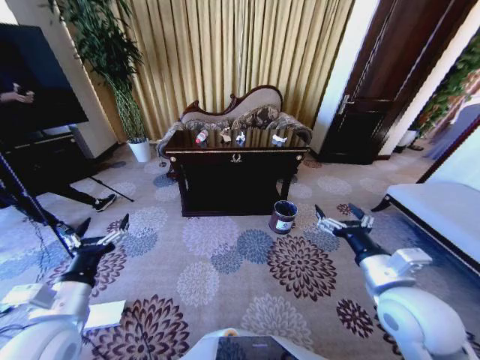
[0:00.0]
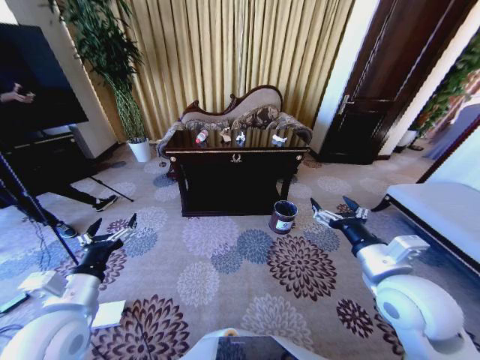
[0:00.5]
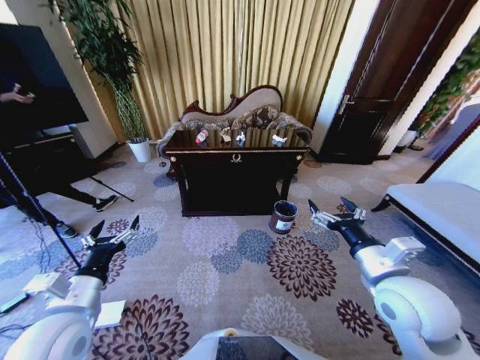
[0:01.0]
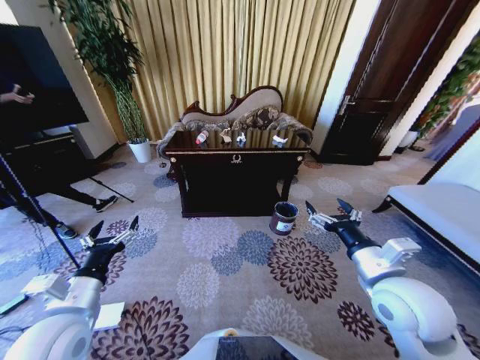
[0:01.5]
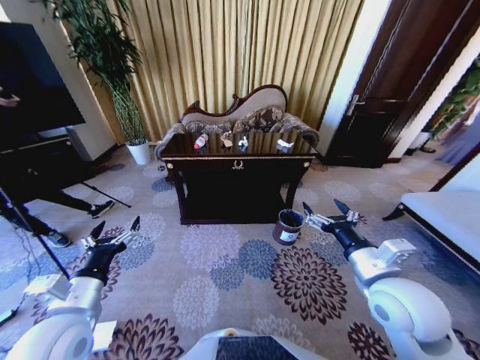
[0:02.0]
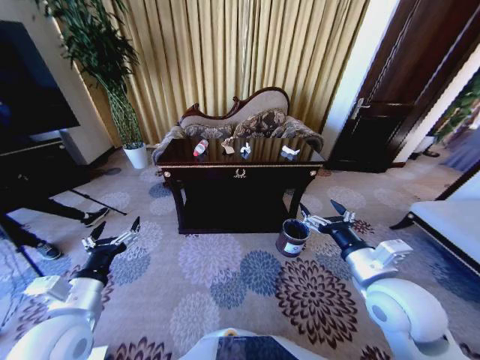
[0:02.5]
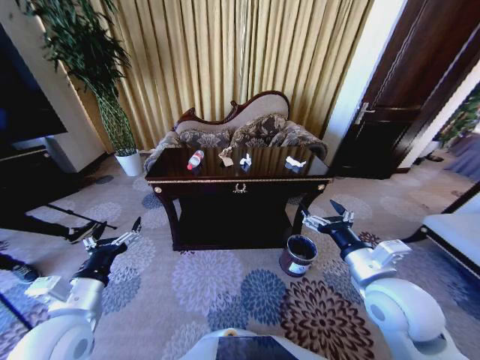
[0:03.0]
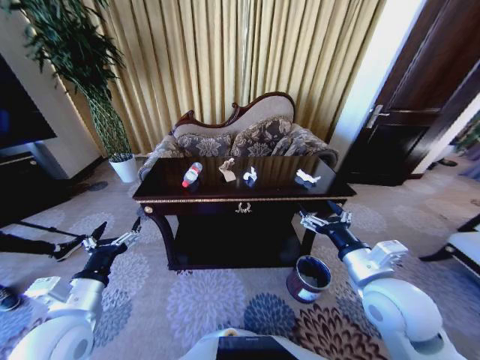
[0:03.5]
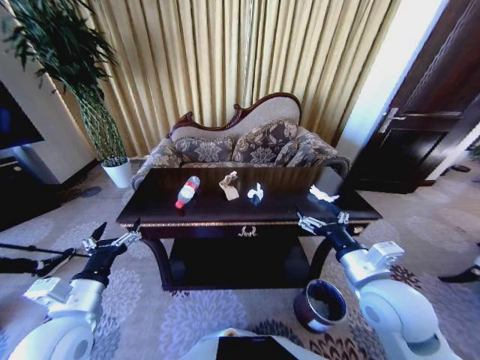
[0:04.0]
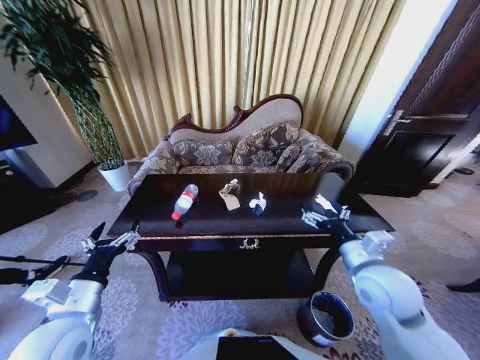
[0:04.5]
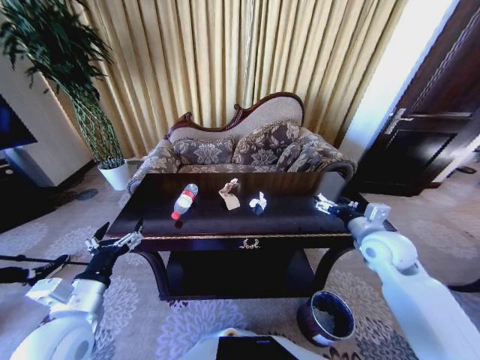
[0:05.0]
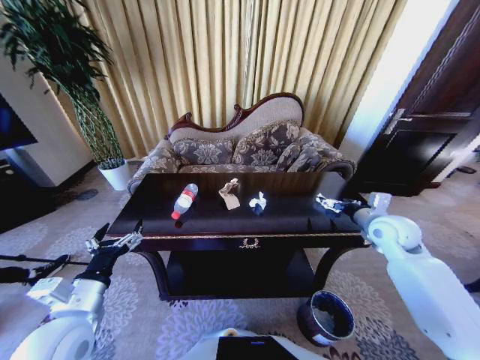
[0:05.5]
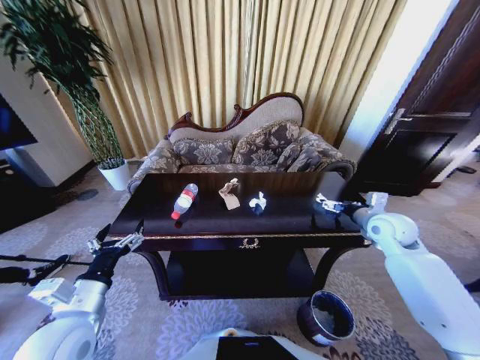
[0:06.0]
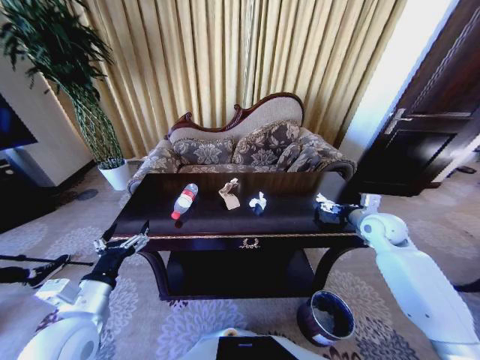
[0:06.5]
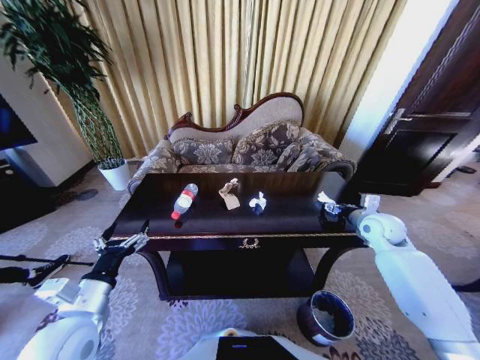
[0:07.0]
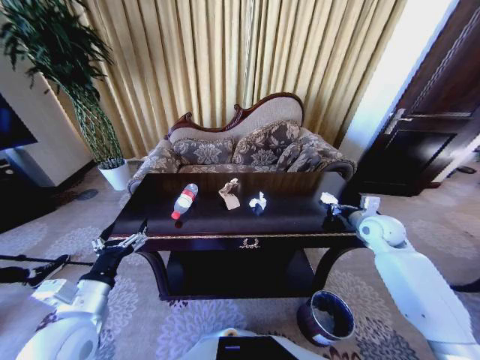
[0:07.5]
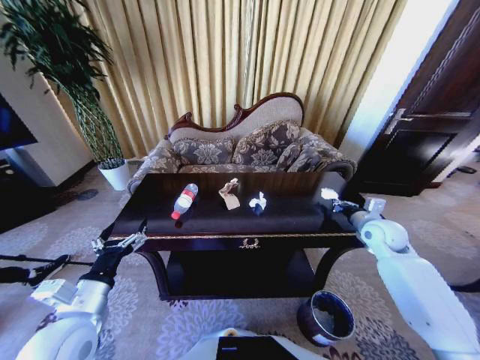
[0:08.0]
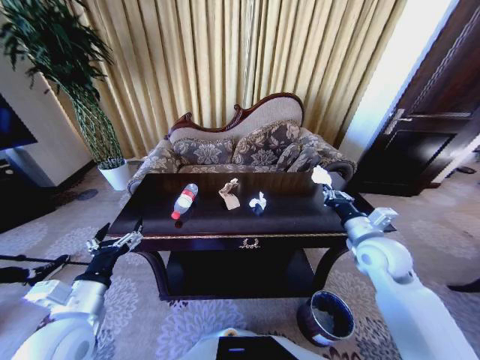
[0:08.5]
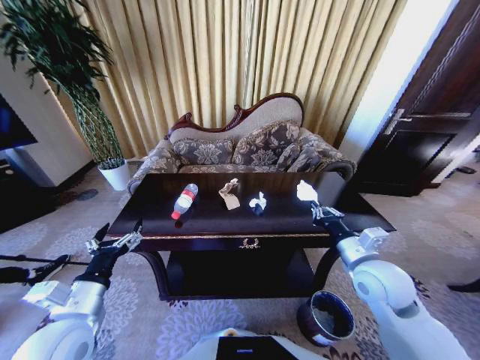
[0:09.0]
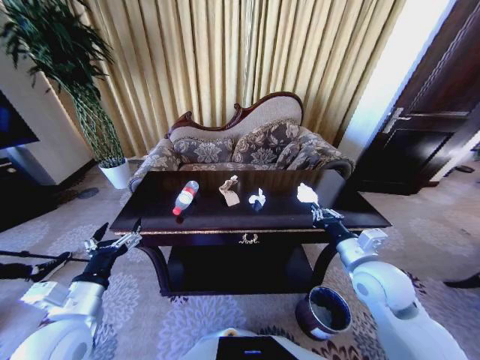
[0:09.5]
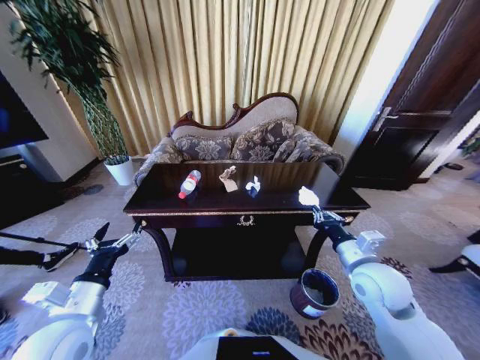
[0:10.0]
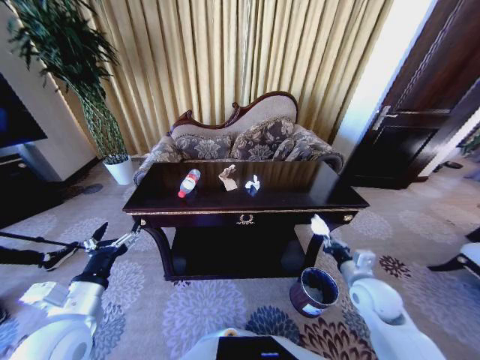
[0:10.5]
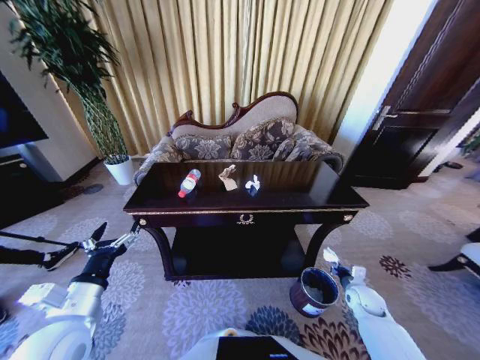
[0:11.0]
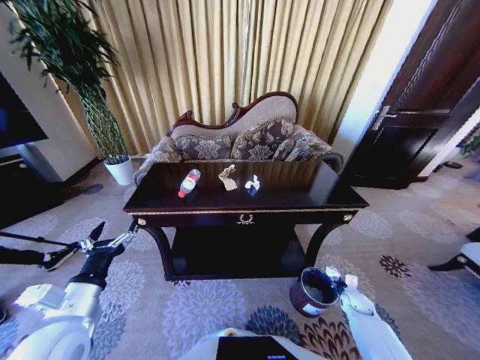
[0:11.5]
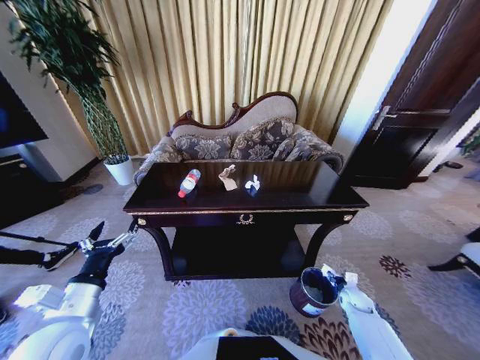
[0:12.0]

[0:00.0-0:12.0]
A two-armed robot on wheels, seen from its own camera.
Task of the whole recording: Move to the front of the table and place the trash on the table into the trash bin.
0:04.0 to 0:06.0: The right gripper goes some 25 cm forward and to the right.
0:06.0 to 0:08.0: The right gripper closes its fingers.
0:08.0 to 0:10.0: The right gripper is displaced backward and to the left by approximately 20 cm.
0:10.0 to 0:12.0: The right gripper is displaced downward and to the right by some 35 cm, and opens its fingers.

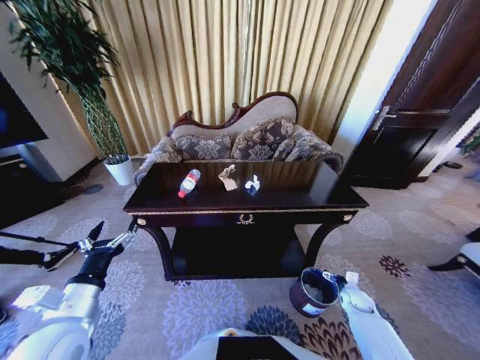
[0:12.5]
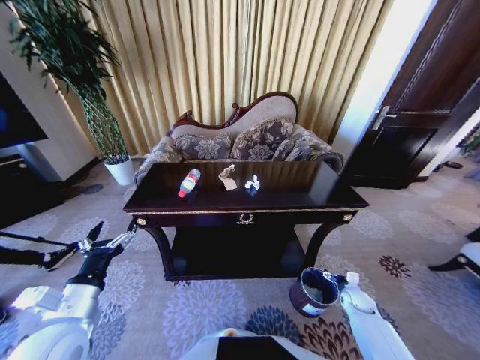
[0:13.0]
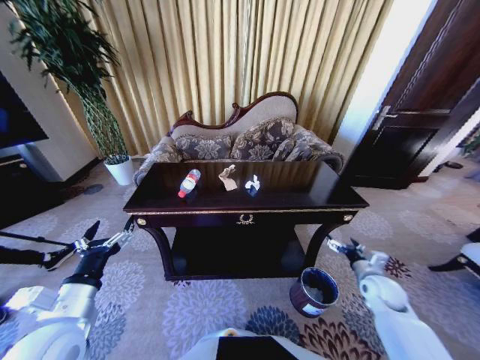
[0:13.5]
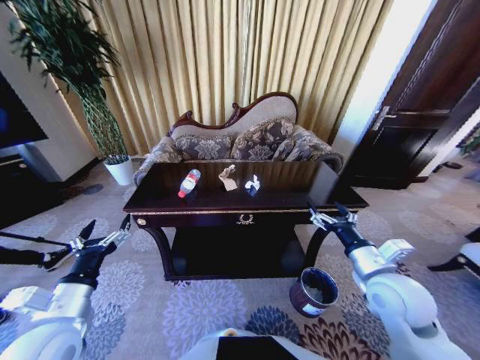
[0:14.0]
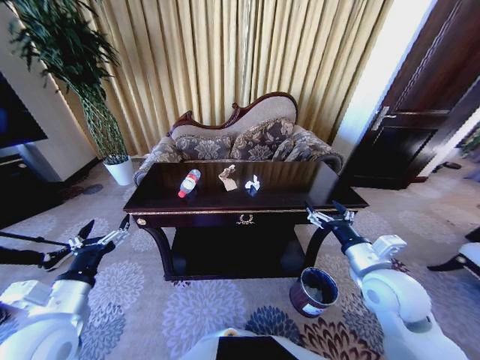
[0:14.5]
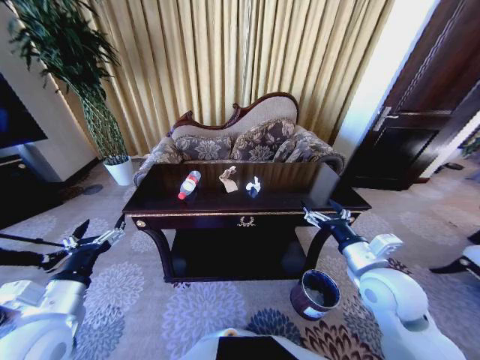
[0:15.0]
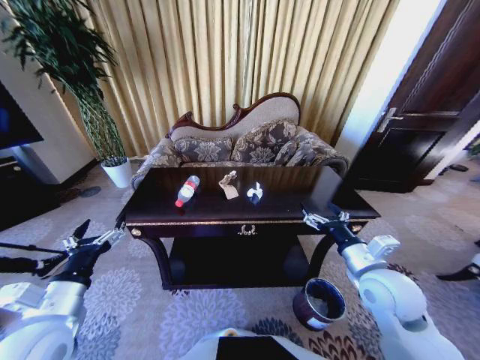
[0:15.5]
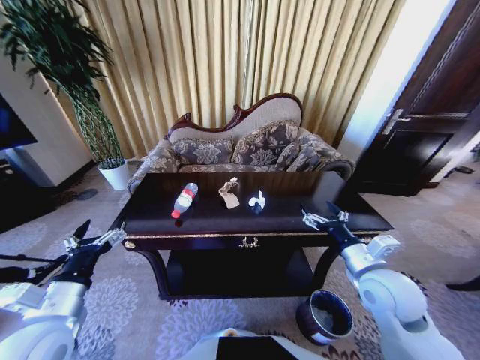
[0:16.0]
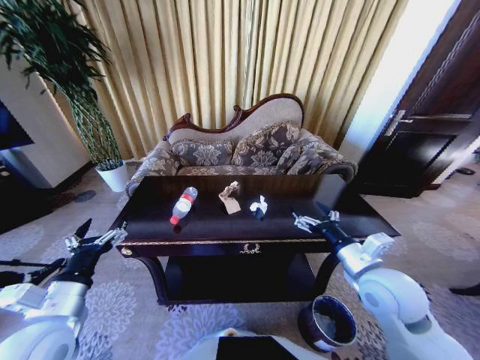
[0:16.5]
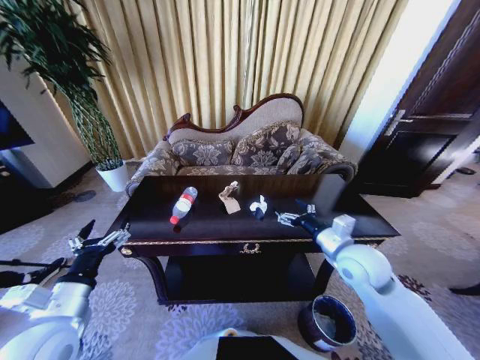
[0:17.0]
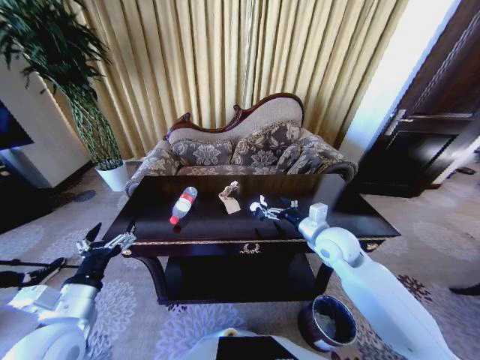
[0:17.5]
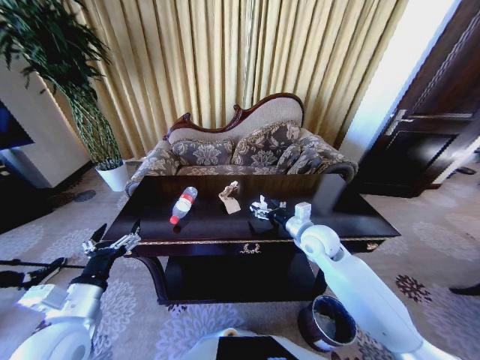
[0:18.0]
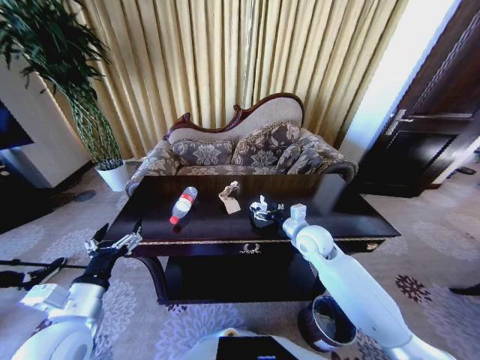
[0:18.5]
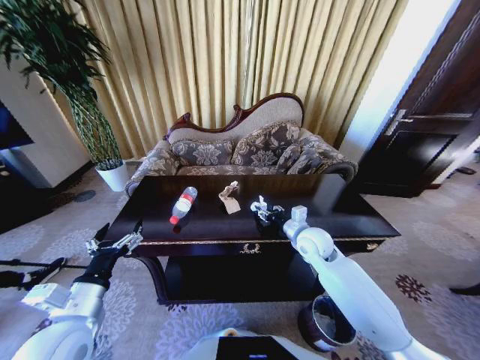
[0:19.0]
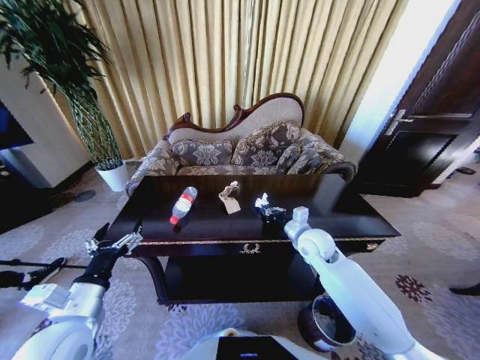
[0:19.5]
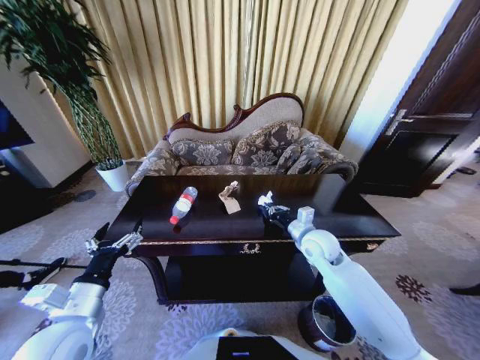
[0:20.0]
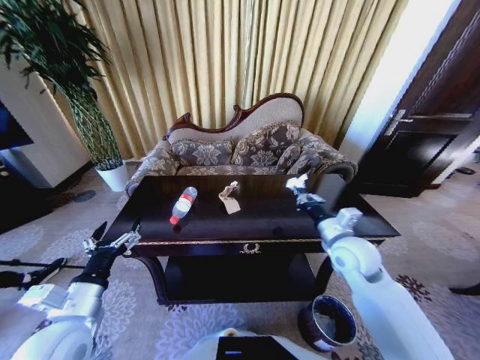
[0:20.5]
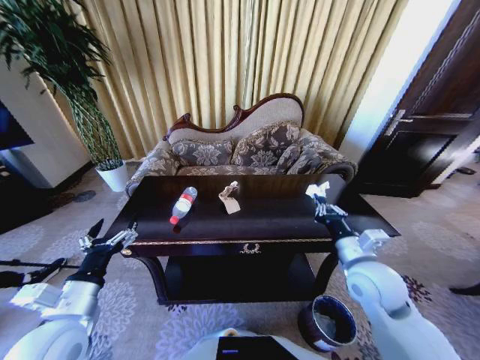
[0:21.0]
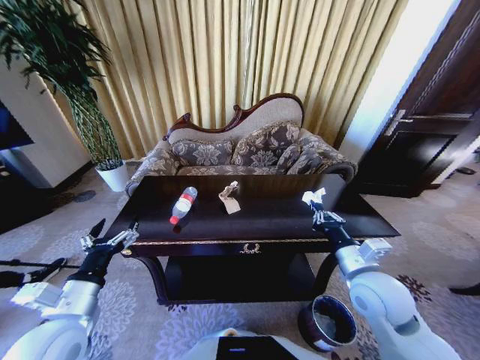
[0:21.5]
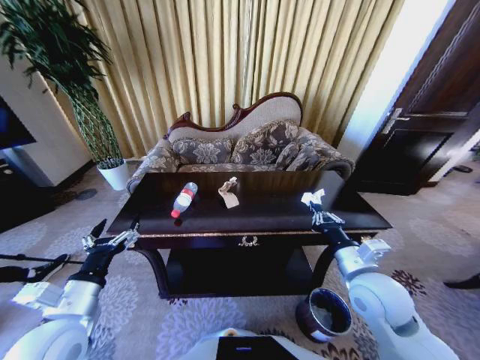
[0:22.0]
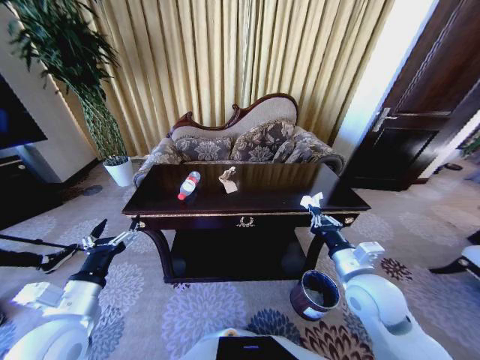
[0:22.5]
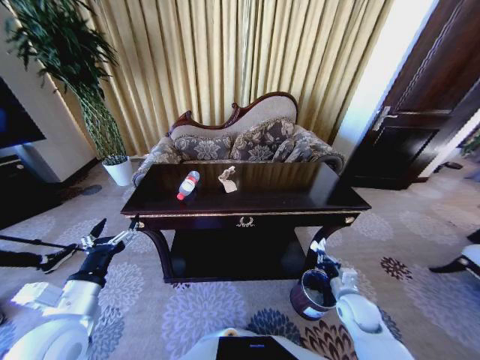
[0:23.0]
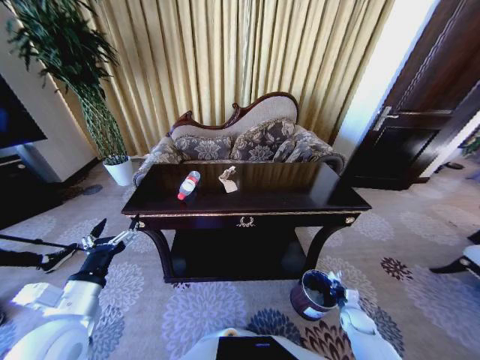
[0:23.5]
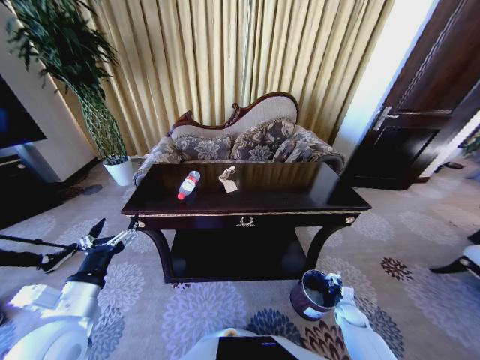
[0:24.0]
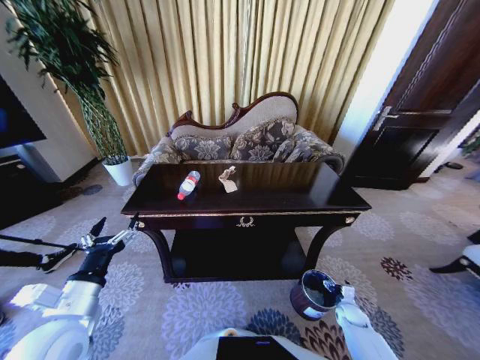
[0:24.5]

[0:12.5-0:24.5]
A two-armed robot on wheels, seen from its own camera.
Task of the whole recording: Move to the front of the table and place the trash on the table into the trash bin.
0:12.5 to 0:14.5: The right gripper travels upward and to the left by approximately 35 cm.
0:16.5 to 0:18.5: The right gripper goes roughly 15 cm forward and to the left.
0:18.5 to 0:20.5: The right gripper heads backward and to the right, covering about 10 cm, and closes its fingers.
0:20.5 to 0:22.5: The right gripper is displaced backward by about 10 cm.
0:22.5 to 0:24.5: The right gripper is displaced downward and to the right by some 40 cm, and opens.

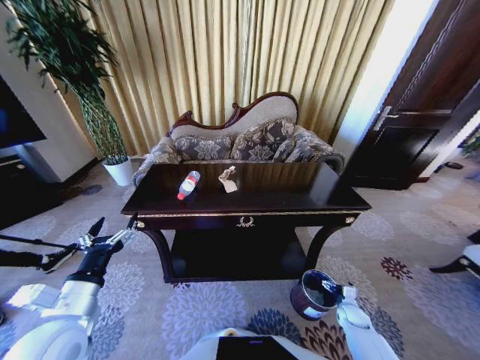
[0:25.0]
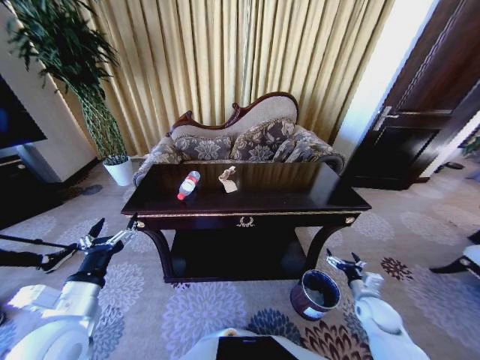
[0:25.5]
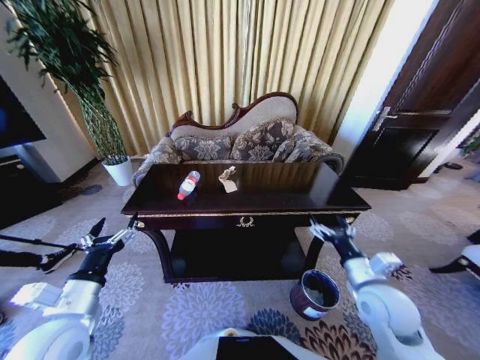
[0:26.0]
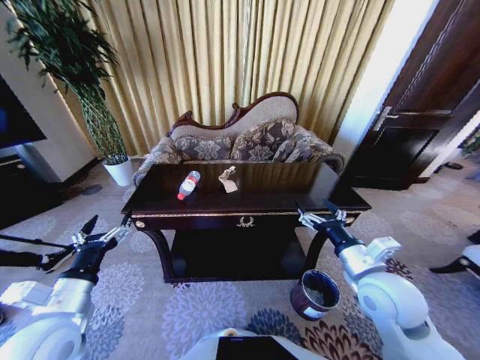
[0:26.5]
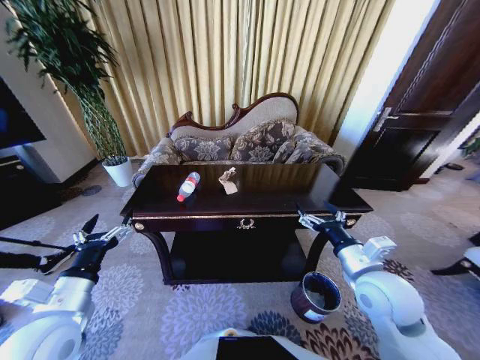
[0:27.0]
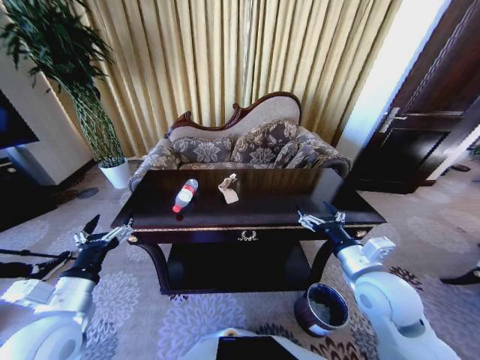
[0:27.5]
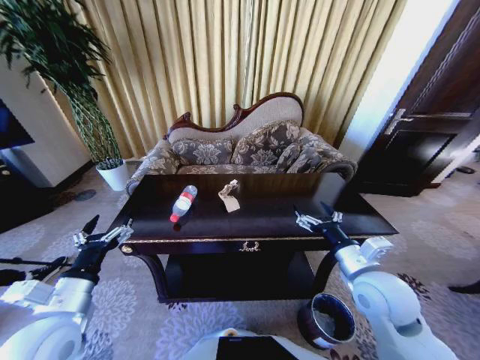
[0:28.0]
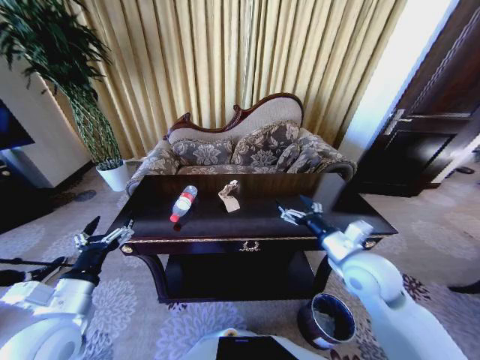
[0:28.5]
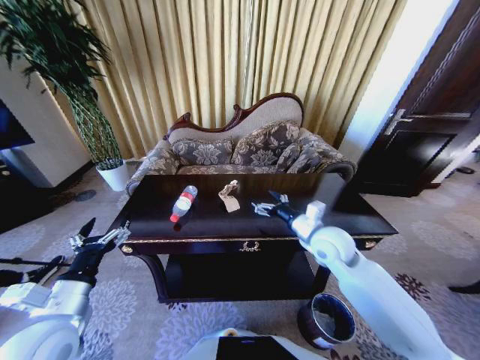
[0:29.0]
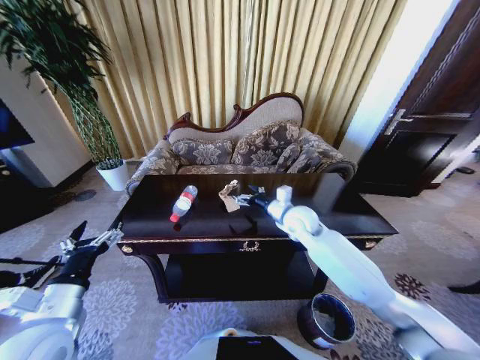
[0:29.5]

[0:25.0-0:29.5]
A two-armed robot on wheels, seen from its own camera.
Task of the whole recording: Move to the front of the table and place the trash on the table into the trash bin.
0:25.0 to 0:27.0: The right gripper travels upward and to the left by approximately 40 cm.
0:27.0 to 0:29.5: The right gripper travels forward and to the left by about 25 cm.
